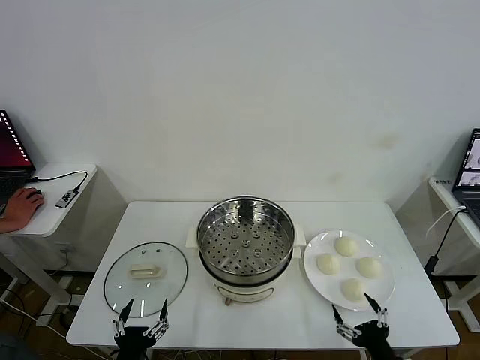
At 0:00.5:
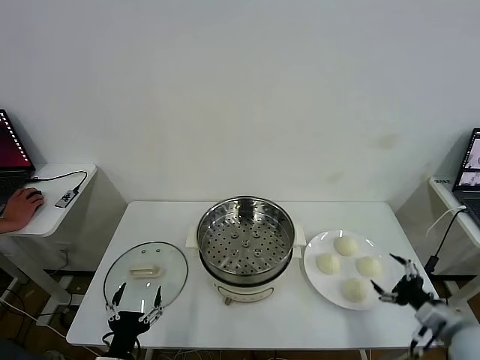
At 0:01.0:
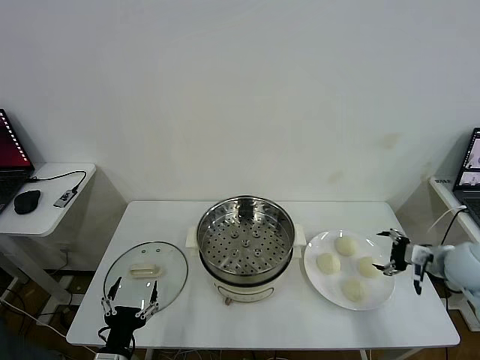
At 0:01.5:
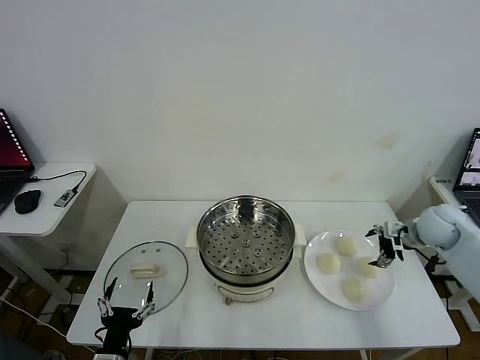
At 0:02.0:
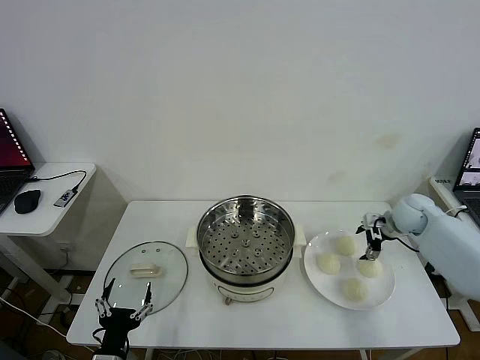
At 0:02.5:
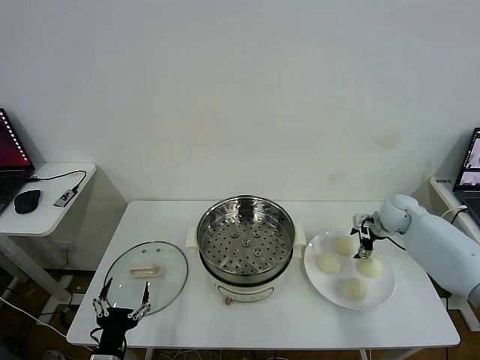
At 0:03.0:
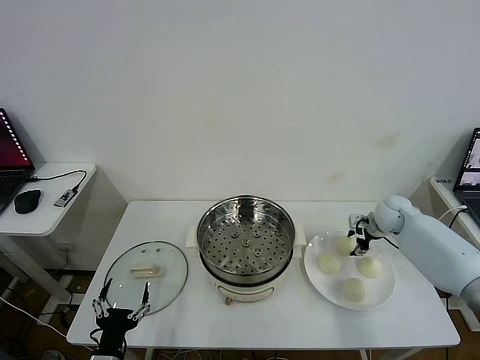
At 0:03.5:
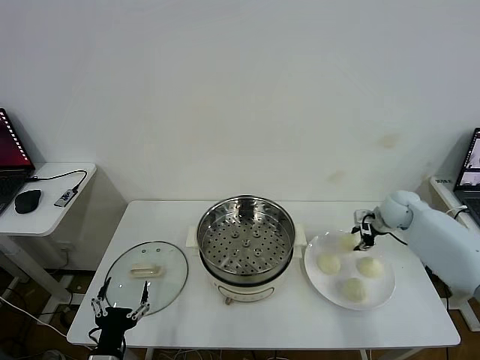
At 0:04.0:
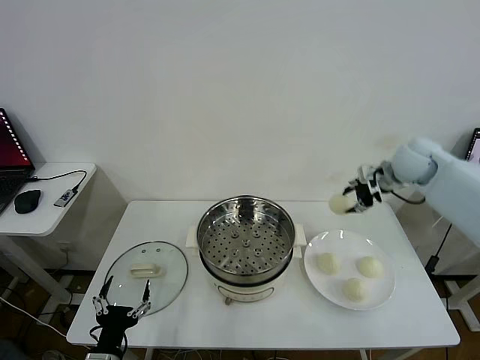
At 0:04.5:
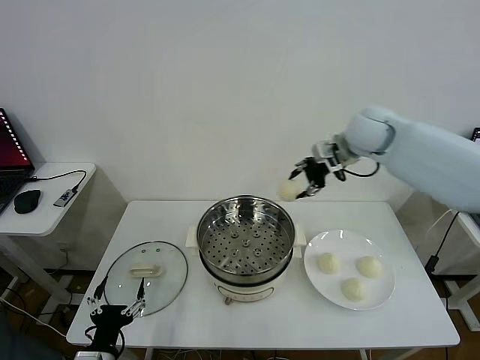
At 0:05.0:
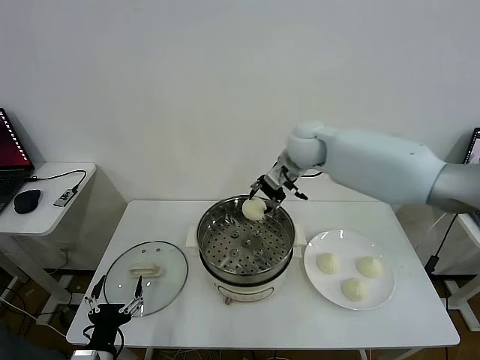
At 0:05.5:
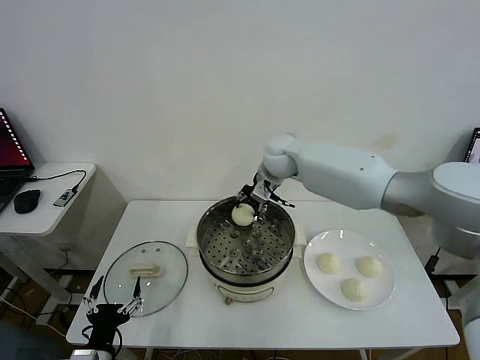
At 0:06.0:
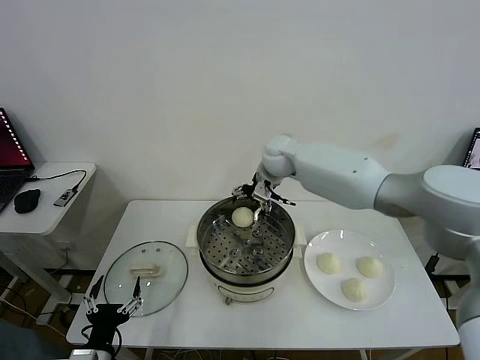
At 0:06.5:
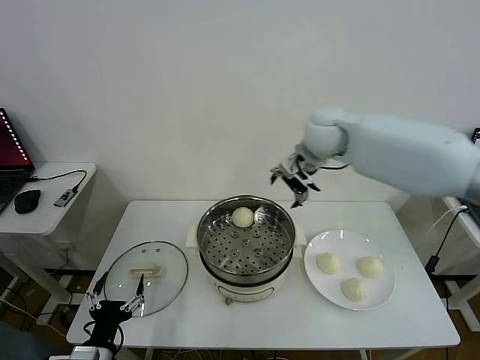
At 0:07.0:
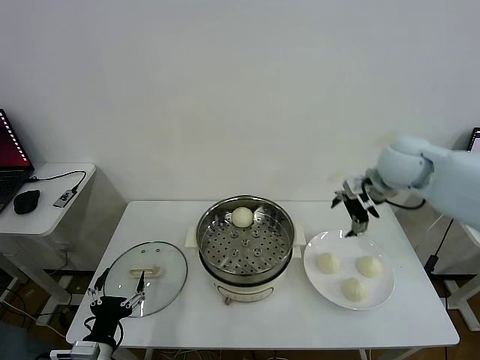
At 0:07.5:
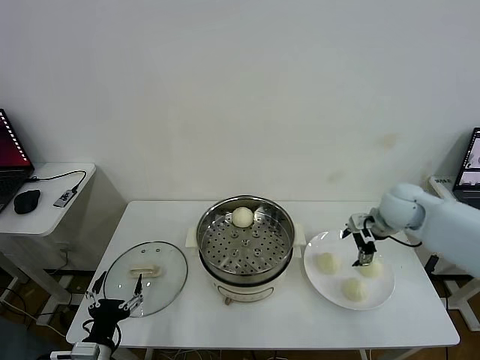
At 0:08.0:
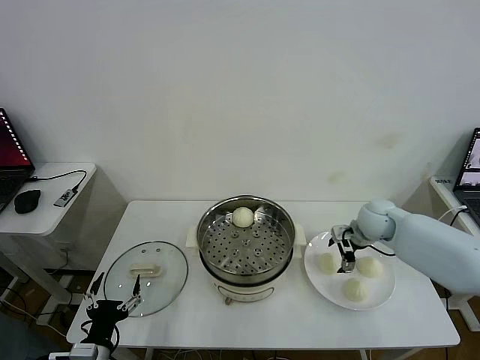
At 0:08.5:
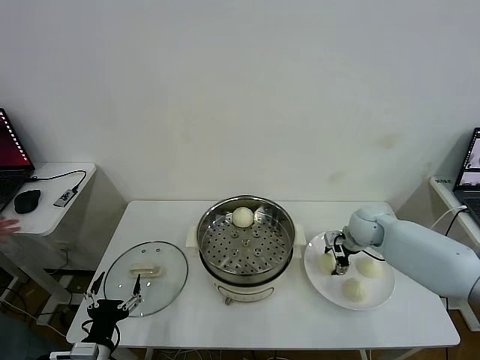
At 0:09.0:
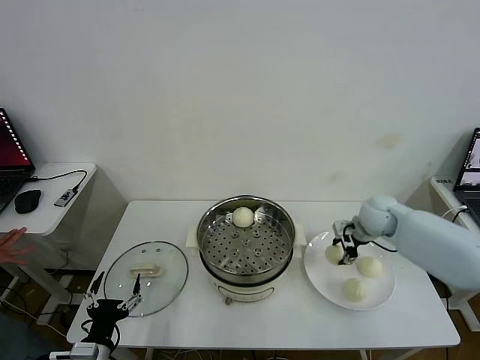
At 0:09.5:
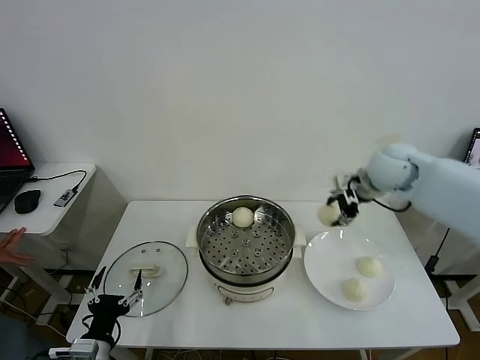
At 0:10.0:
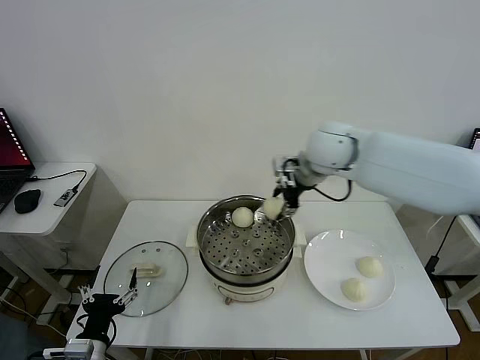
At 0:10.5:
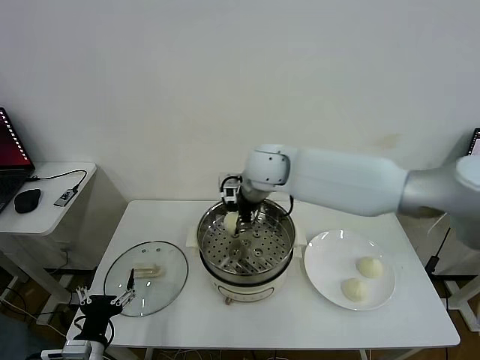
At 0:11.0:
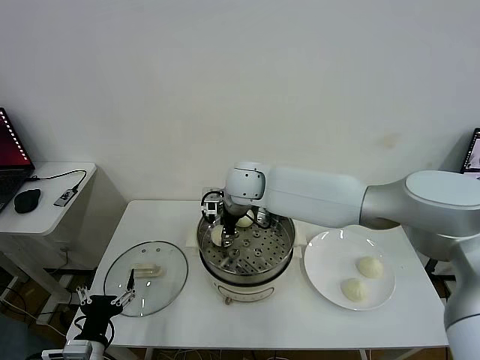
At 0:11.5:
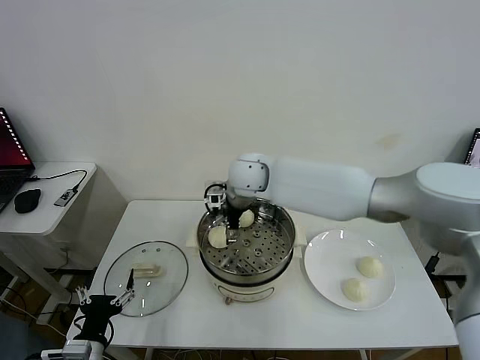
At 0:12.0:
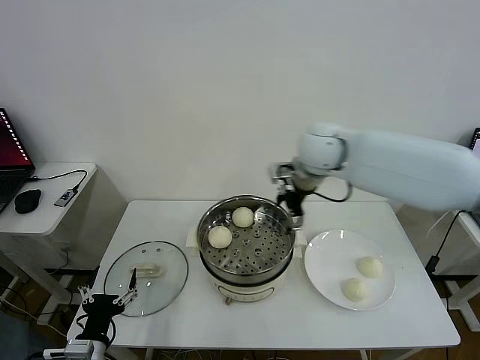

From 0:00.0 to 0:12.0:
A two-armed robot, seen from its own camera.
Task of the whole recording: take steamed baozi put them in steamer then cover it.
Step, from 0:00.0 to 0:03.0: Grasp the baozi in the plate with right gripper.
Step, from 0:03.5 to 0:05.5: Place the baozi on the steamer with right gripper.
Step, from 0:06.0 to 0:08.5: Grasp the baozi in the plate with right gripper.
Step, from 0:09.0 to 0:11.0: Place the baozi on the steamer with right gripper.
From 0:02.0 to 0:04.0: The right gripper moves upward, roughly 20 cm, and closes.
From 0:04.0 to 0:06.0: The right gripper travels to the left by about 25 cm, and opens up.
From 0:06.0 to 0:08.0: The right gripper moves to the right, downward and backward, some 30 cm.
From 0:08.0 to 0:10.0: The right gripper moves upward and to the left, roughly 25 cm, and closes.
From 0:10.0 to 0:12.0: The right gripper travels to the left and back again, about 15 cm each way, and opens its fingers.

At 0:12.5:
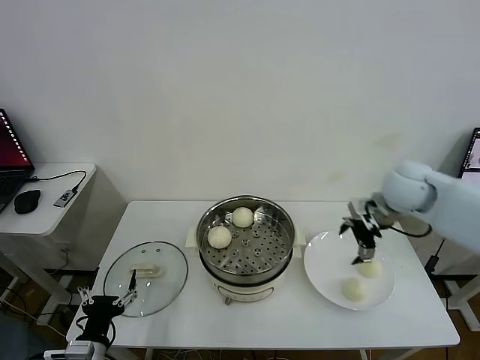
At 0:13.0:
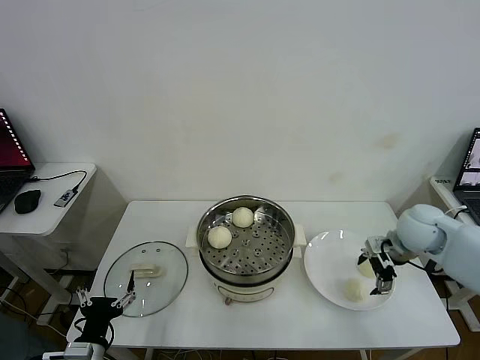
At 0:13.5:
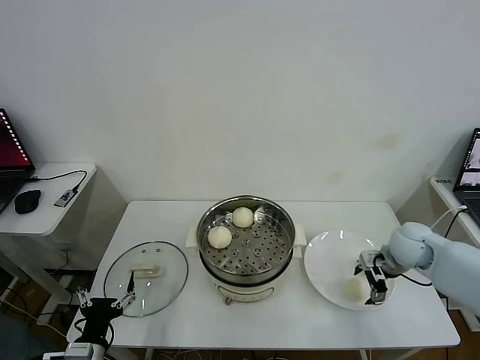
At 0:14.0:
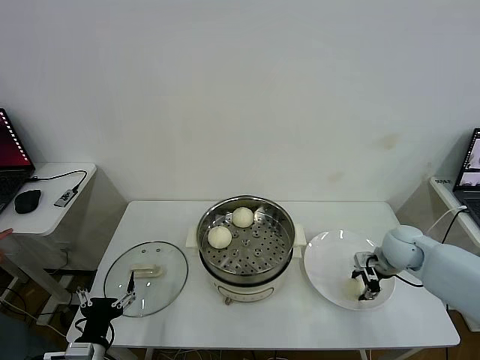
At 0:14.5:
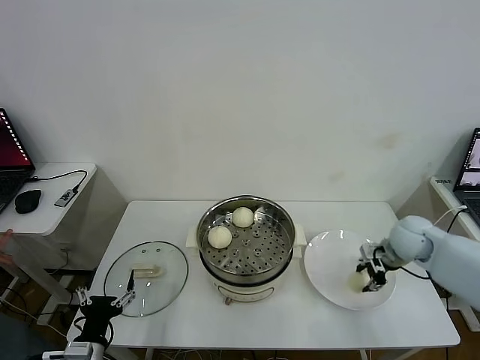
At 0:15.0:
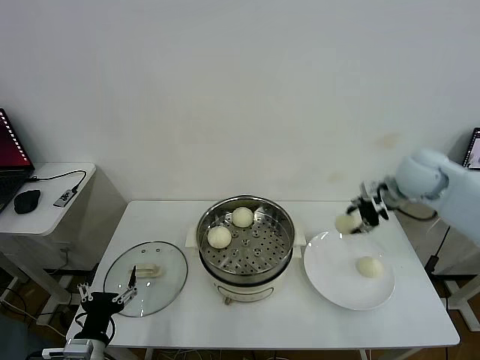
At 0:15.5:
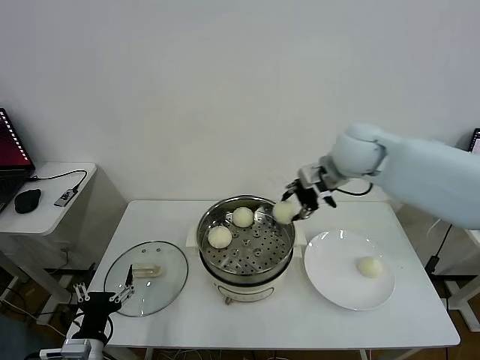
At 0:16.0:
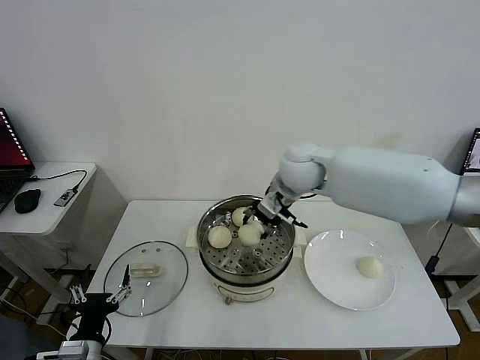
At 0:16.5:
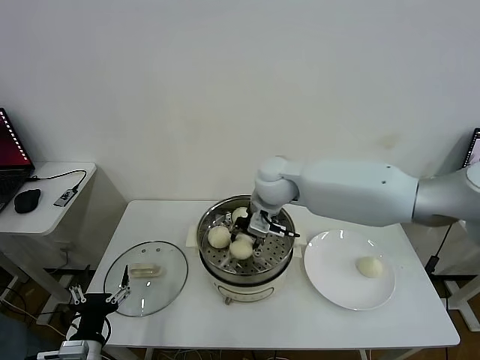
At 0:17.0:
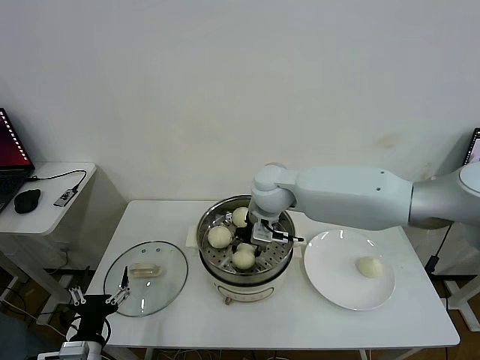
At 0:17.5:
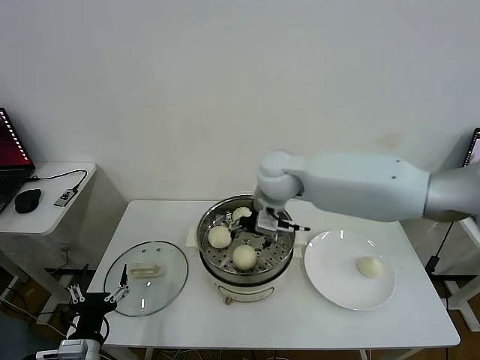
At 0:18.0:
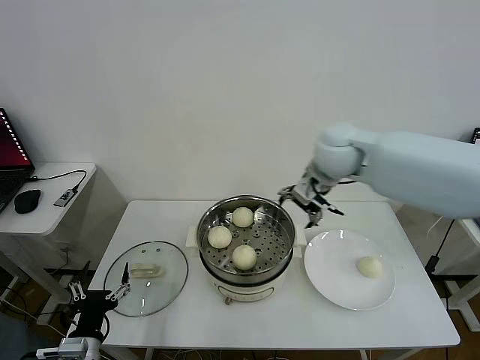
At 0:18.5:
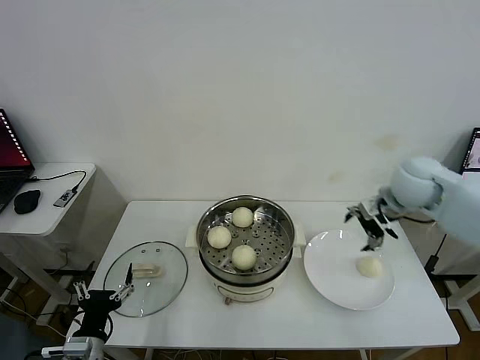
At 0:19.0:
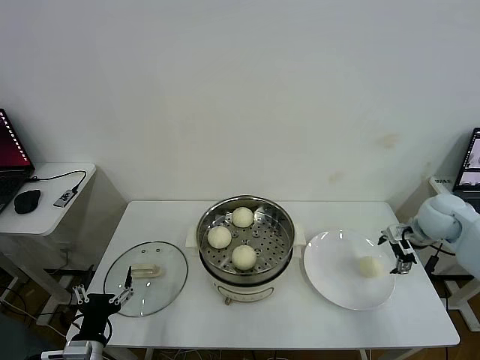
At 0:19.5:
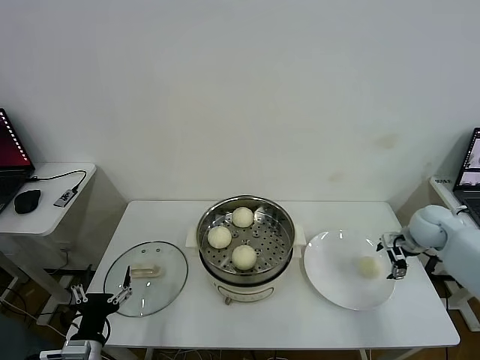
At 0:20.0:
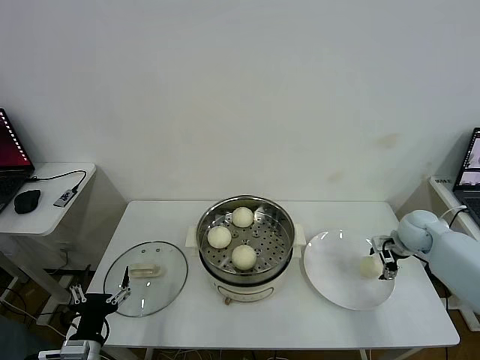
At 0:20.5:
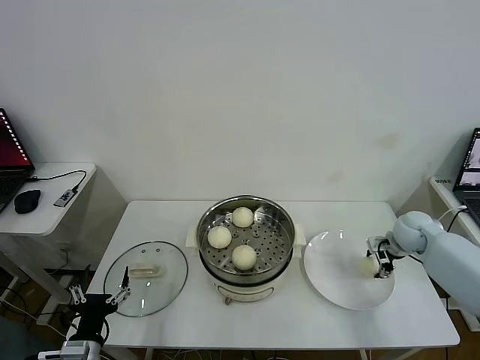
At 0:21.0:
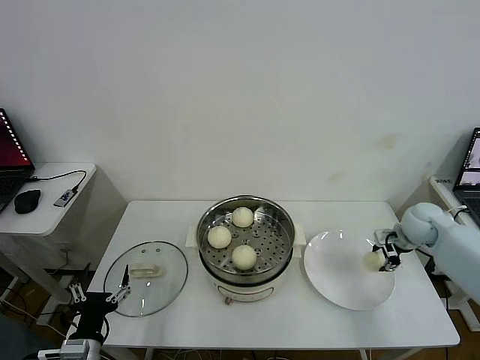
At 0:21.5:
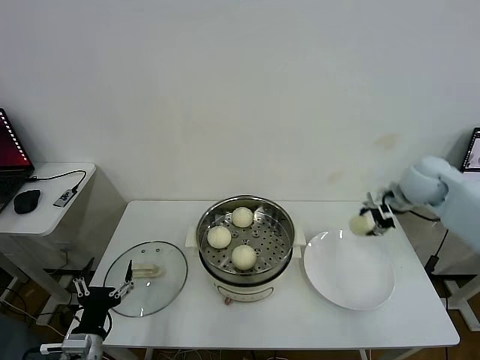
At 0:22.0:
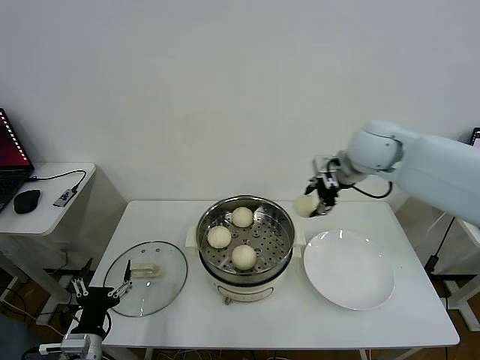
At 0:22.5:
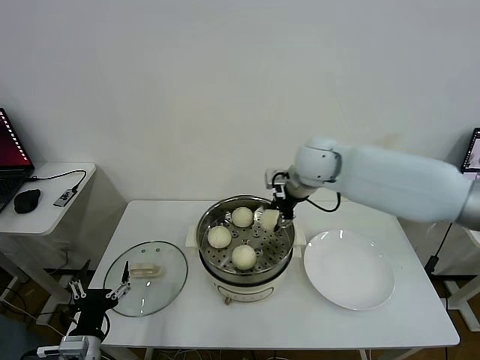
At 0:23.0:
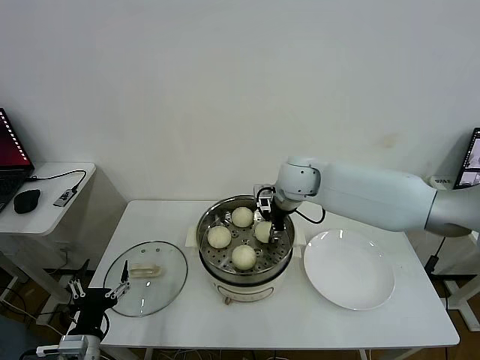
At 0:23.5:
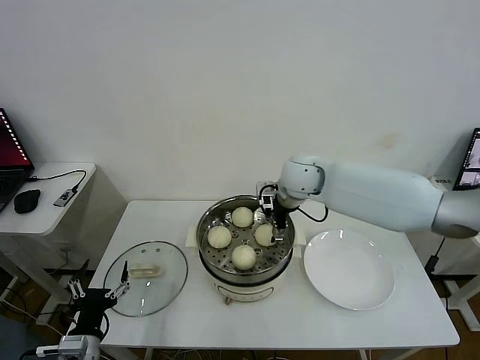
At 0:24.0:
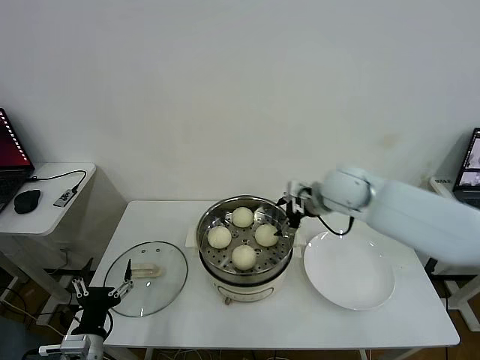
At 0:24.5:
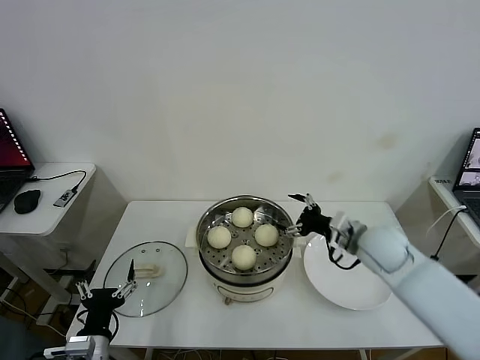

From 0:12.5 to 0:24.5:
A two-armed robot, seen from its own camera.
Task of the whole recording: take steamed baozi put them in steamer then cover it.
Step, from 0:14.0 to 0:17.0: Place the baozi on the steamer with right gripper.
Step, from 0:17.5 to 0:20.5: Grasp the baozi in the plate with right gripper.
Step, from 0:21.0 to 0:23.5: Place the baozi on the steamer with right gripper.
From 0:12.5 to 0:14.5: The right gripper is displaced downward and to the right by roughly 15 cm, and closes up.
From 0:14.5 to 0:16.5: The right gripper shifts about 30 cm to the left.
From 0:16.5 to 0:18.5: The right gripper shifts approximately 30 cm to the right, and opens.
From 0:18.5 to 0:20.5: The right gripper heads downward and to the right, covering some 20 cm, and closes its fingers.
From 0:20.5 to 0:22.5: The right gripper shifts roughly 35 cm to the left and upward.
From 0:22.5 to 0:24.5: The right gripper heads to the right, downward and backward, covering some 20 cm, and opens its fingers.

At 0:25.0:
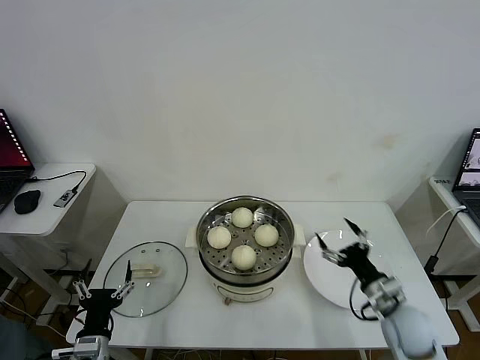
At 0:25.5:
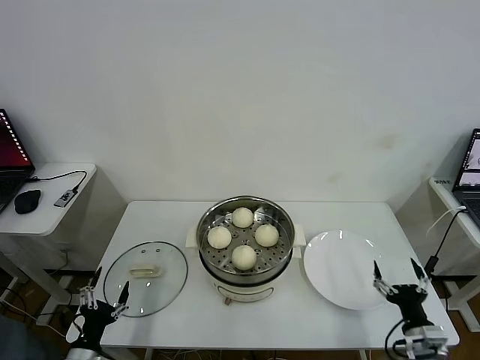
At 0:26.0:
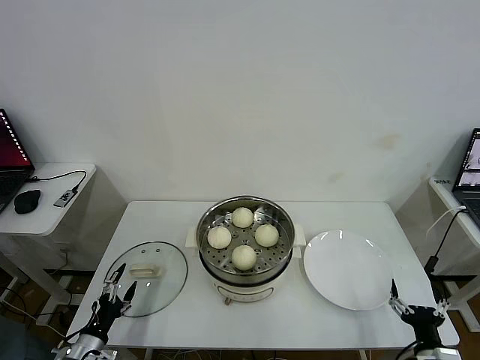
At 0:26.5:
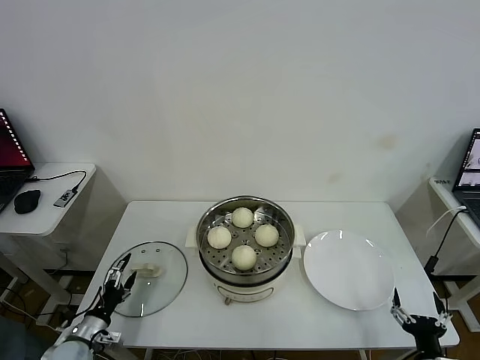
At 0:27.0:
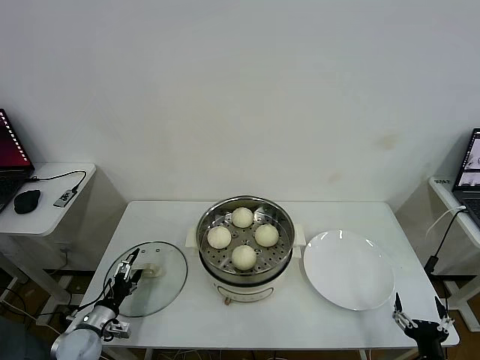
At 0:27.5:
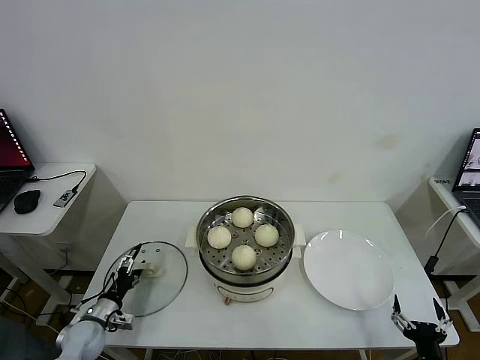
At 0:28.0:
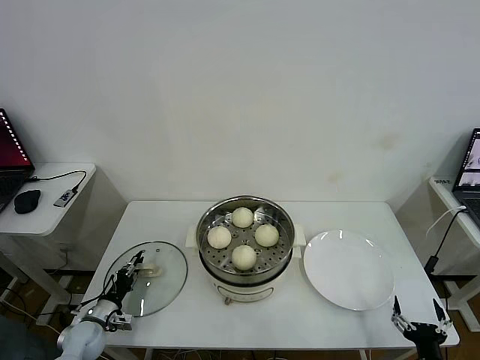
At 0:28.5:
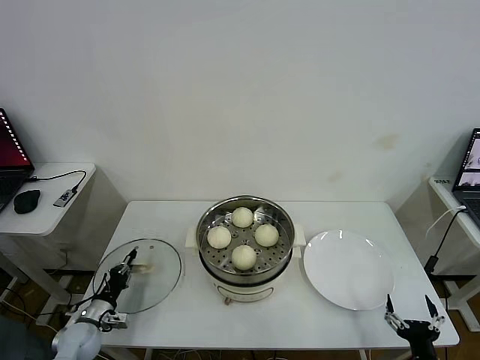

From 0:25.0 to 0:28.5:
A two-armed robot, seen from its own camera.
Task of the whole recording: take steamed baozi put them in steamer then cover it.
Step, from 0:25.0 to 0:28.0: Grasp the pot lid with left gripper.
From 0:25.0 to 0:27.0: The right gripper goes some 20 cm backward and downward; the left gripper goes roughly 15 cm forward, to the left and downward.
From 0:27.0 to 0:28.5: The left gripper closes.
